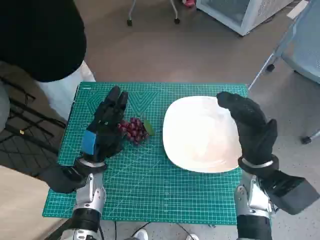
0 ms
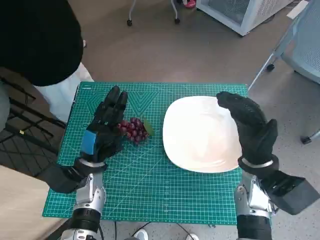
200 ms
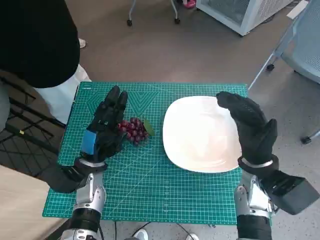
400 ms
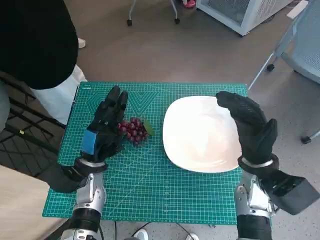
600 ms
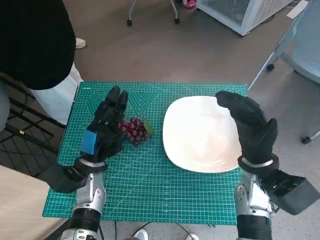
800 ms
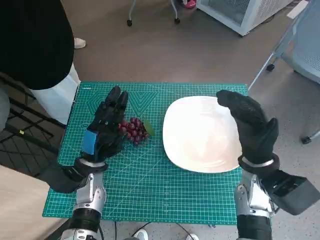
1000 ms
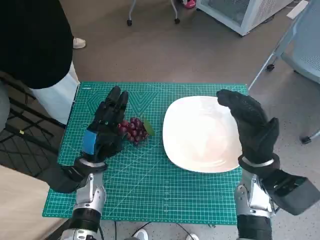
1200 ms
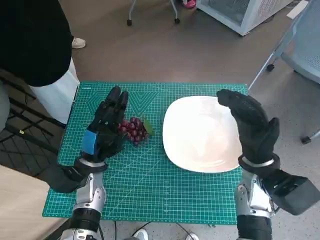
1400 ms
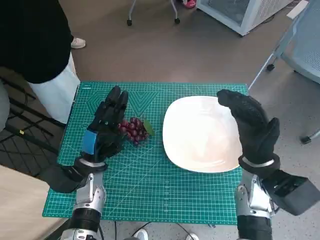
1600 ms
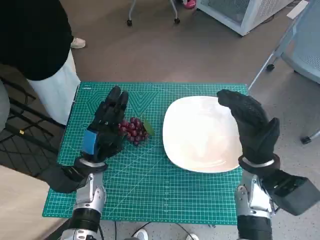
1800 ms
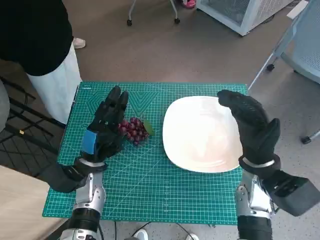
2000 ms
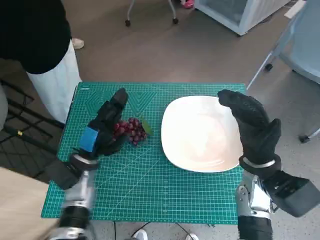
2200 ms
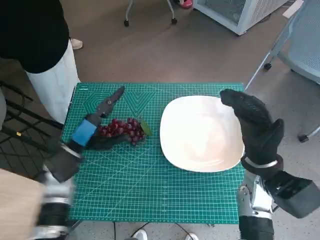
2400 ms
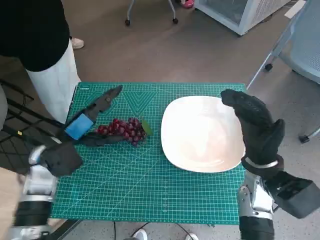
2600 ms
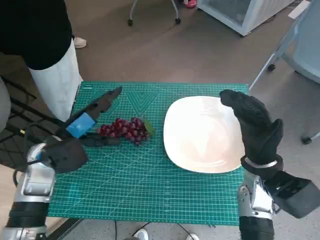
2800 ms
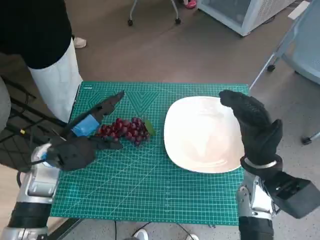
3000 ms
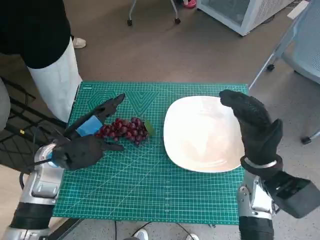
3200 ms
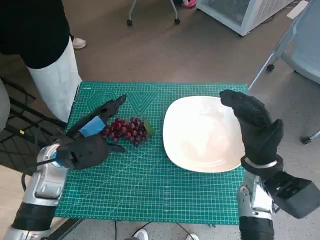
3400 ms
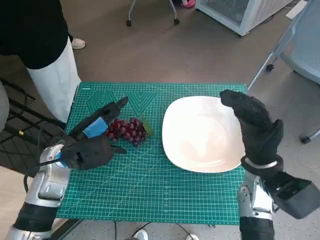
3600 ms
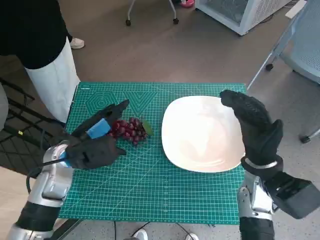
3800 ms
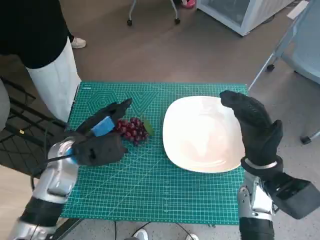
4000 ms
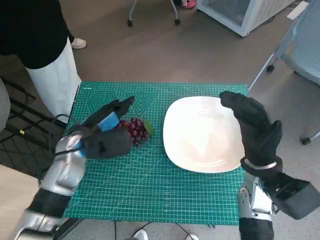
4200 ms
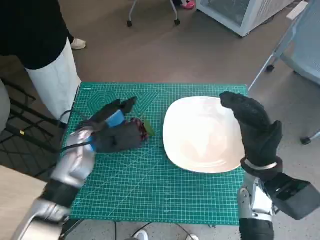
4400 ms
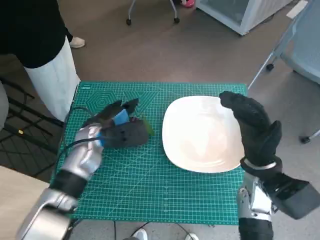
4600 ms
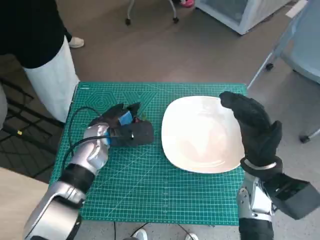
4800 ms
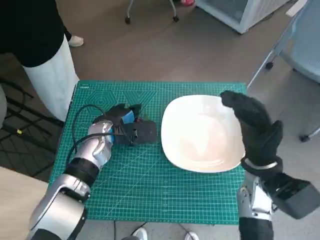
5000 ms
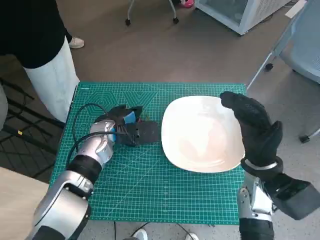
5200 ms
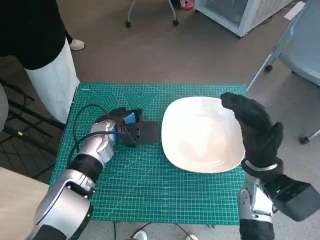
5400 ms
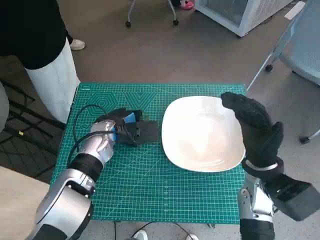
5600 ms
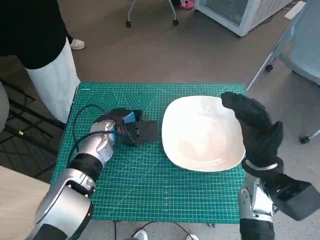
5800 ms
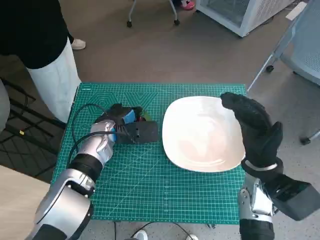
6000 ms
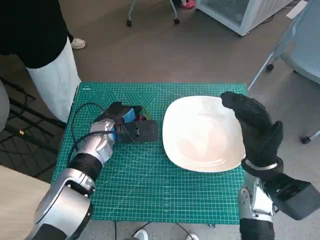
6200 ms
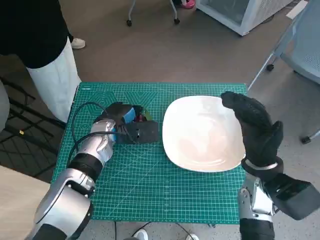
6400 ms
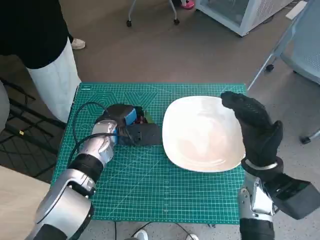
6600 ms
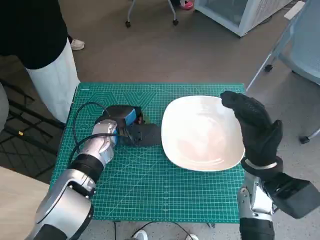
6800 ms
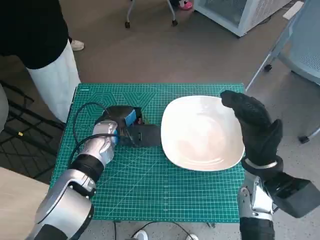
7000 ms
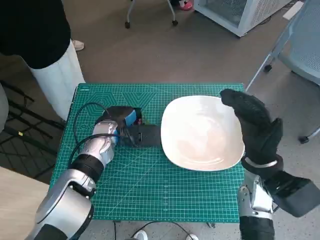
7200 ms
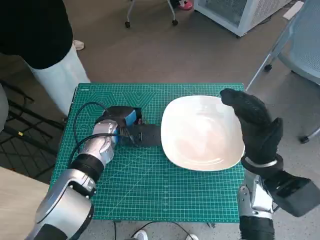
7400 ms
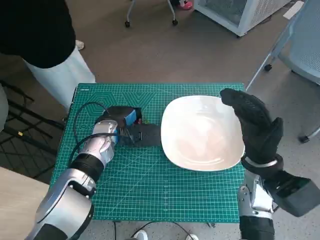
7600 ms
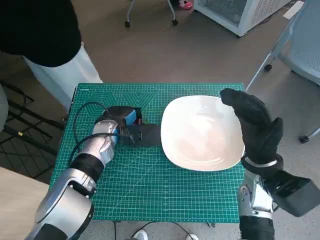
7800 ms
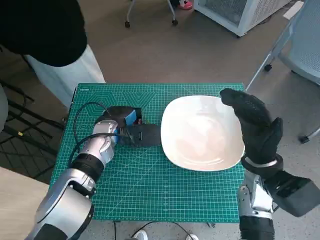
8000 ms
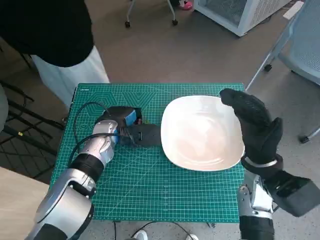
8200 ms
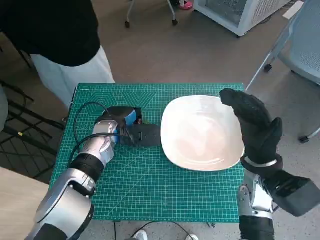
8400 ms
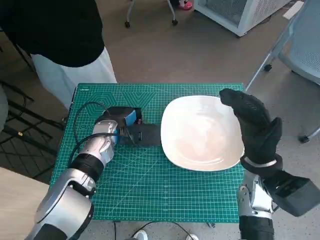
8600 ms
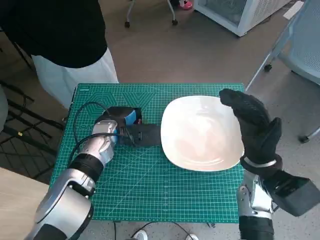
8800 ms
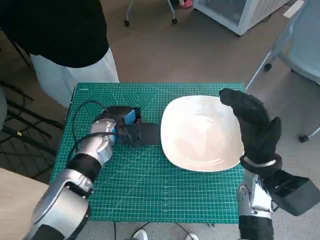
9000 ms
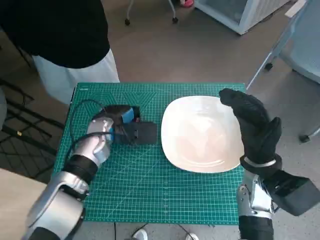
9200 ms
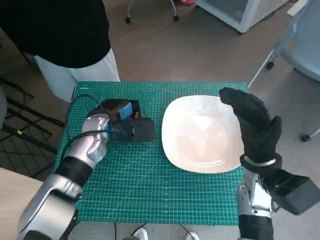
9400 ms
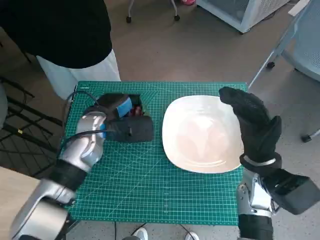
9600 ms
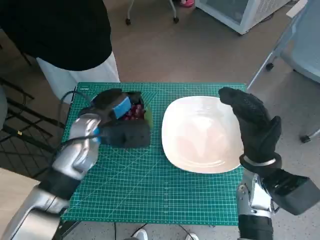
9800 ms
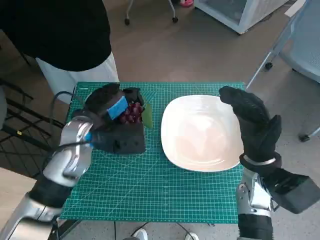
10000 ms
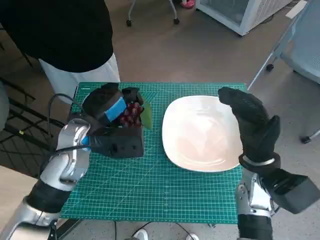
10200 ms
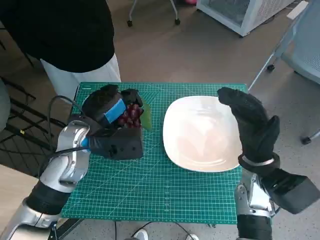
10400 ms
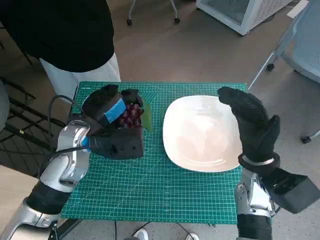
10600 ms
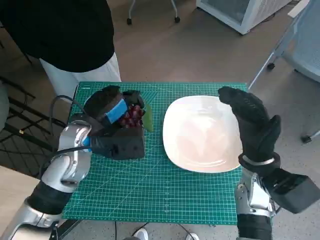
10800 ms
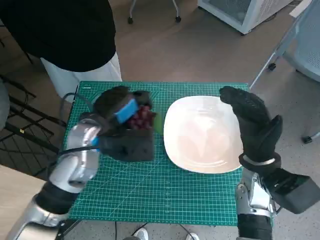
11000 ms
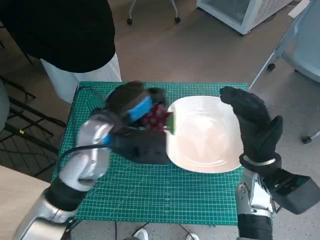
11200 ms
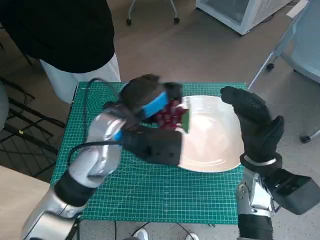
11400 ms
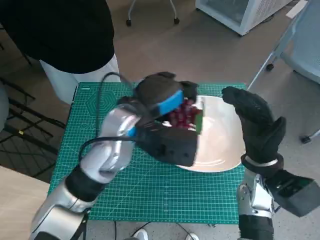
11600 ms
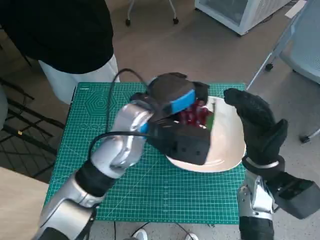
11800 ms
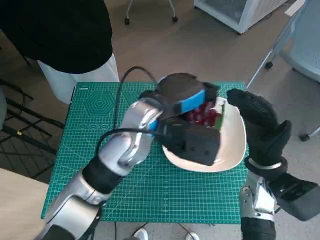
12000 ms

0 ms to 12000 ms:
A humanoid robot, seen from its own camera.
Task of the whole recording: Pick up the grapes and put them on the plate.
Step, 0 ms to 6600 ms: Grasp the grapes with left hand.
1600 ms to 3000 ms: The left hand goes about 10 cm upward.
3000 ms to 4400 ms: The left hand moves to the right, roughly 5 cm.
4400 ms to 6000 ms: The left hand moves roughly 5 cm.
6000 ms to 7600 ms: The hands move only a little.
7600 ms to 9000 ms: Neither hand changes place.
9000 ms to 10400 ms: The left hand is displaced upward and backward by about 10 cm.
10400 ms to 12000 ms: The left hand travels to the right and upward by some 15 cm.

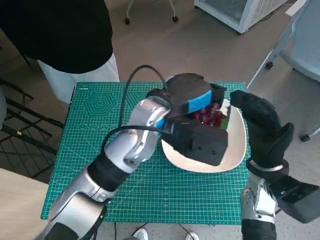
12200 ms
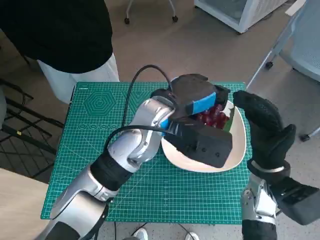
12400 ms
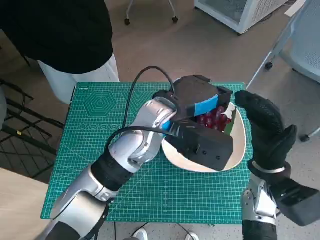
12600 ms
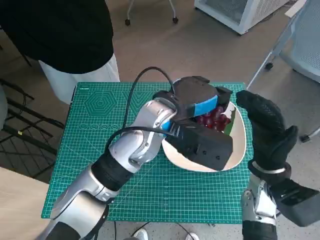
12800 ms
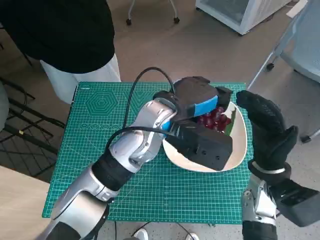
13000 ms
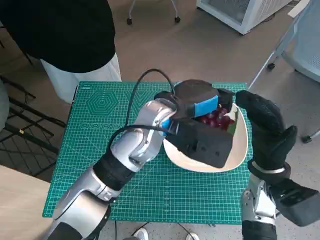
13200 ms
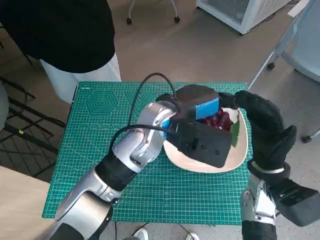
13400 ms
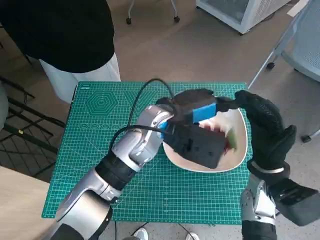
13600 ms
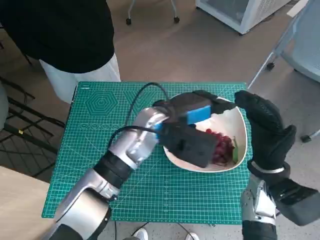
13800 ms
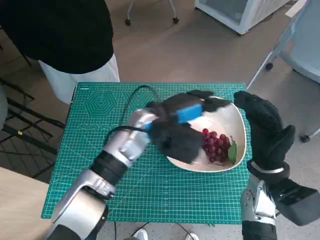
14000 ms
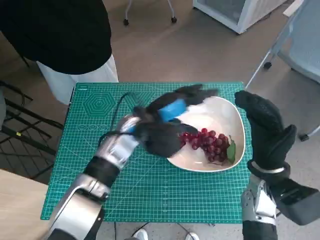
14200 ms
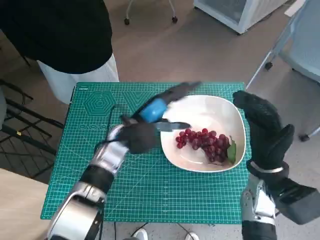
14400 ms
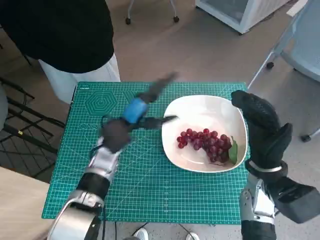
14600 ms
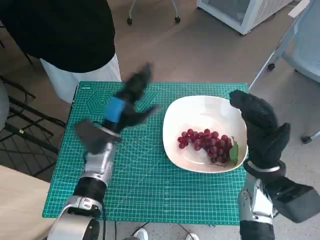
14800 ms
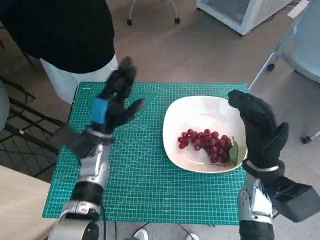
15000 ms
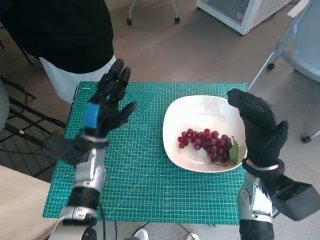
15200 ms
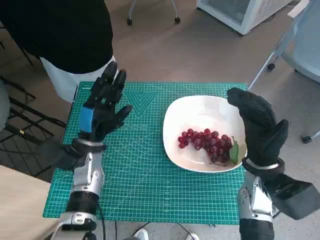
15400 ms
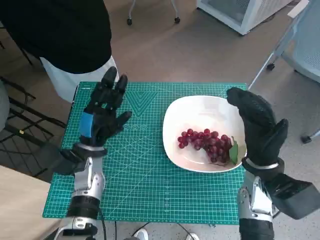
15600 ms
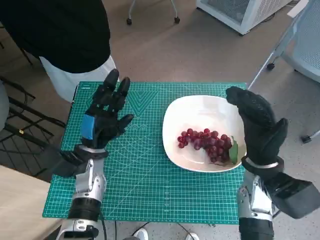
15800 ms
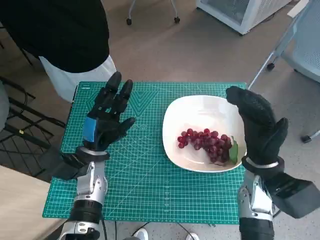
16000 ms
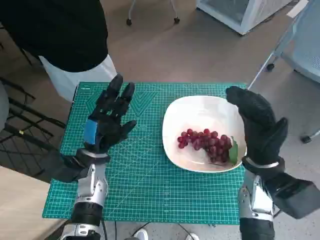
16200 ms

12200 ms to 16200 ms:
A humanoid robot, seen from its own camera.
Task of the whole recording: Pick up the grapes and put them on the plate.
12200 ms to 13600 ms: The hands stay close to where they were, moving slightly.
13600 ms to 14800 ms: The left hand is displaced to the left and downward by about 15 cm.
14800 ms to 16200 ms: The left hand ends up about 5 cm from where it was.

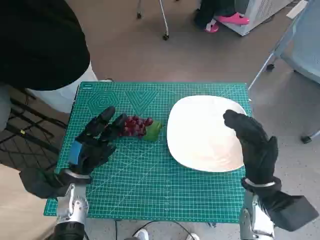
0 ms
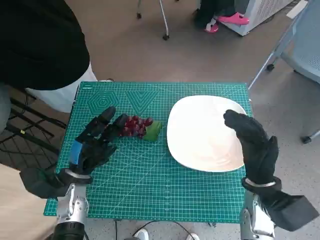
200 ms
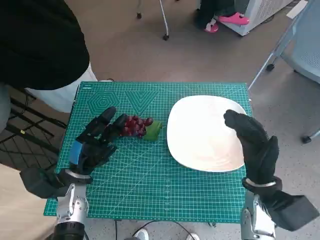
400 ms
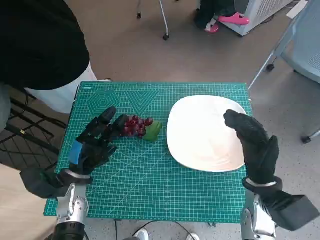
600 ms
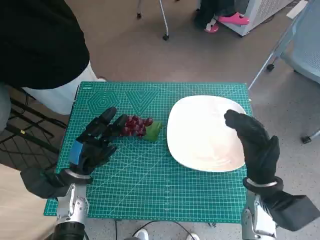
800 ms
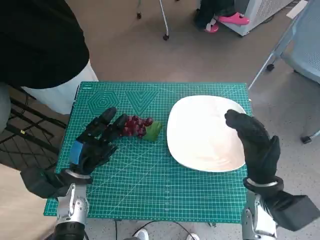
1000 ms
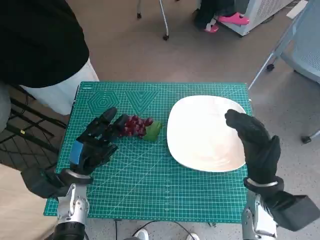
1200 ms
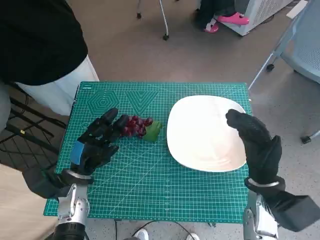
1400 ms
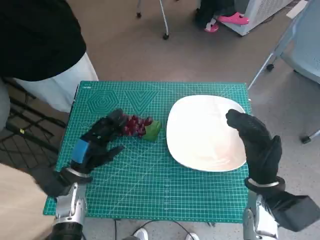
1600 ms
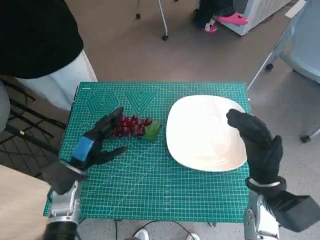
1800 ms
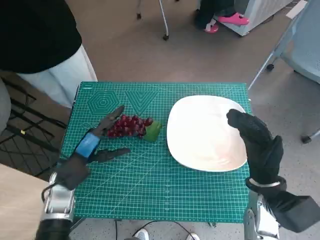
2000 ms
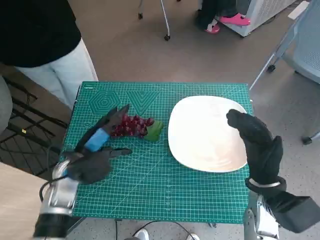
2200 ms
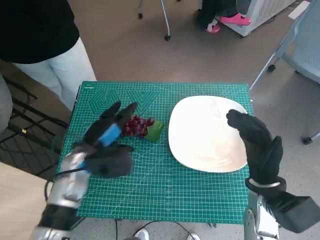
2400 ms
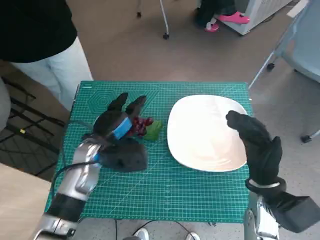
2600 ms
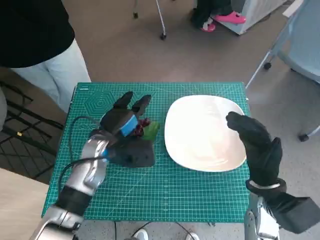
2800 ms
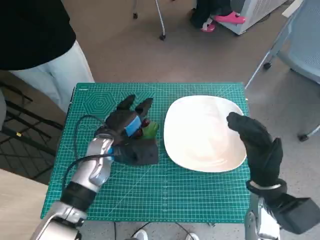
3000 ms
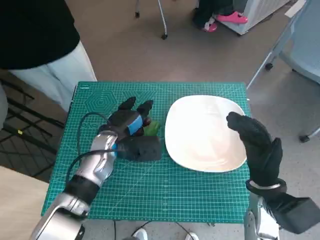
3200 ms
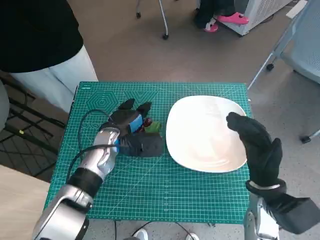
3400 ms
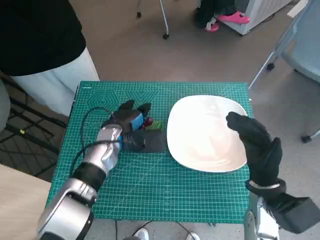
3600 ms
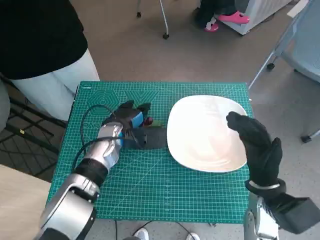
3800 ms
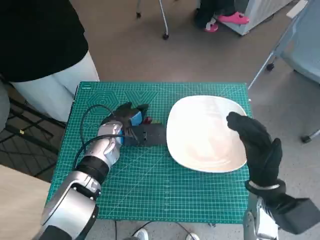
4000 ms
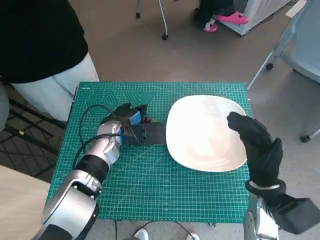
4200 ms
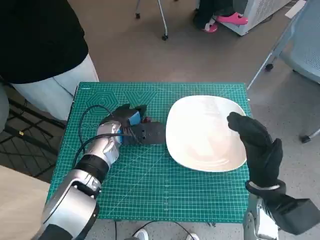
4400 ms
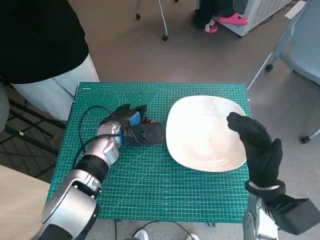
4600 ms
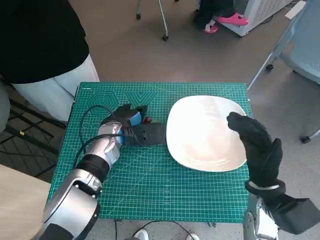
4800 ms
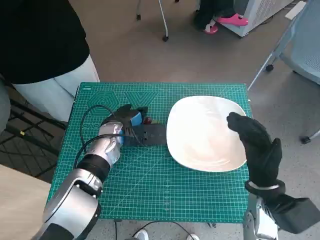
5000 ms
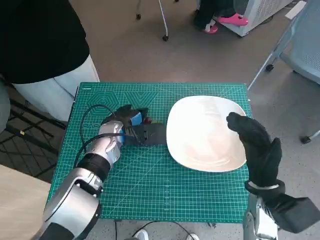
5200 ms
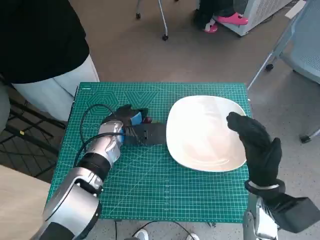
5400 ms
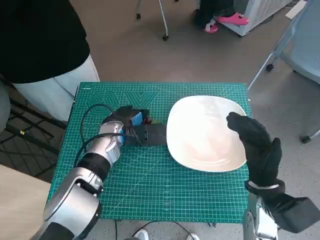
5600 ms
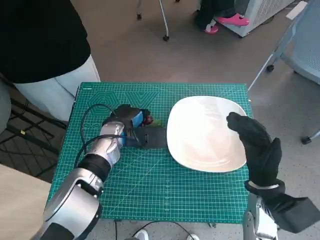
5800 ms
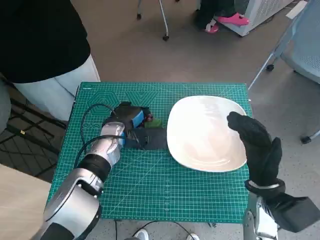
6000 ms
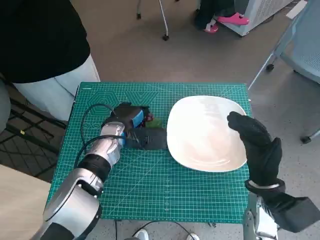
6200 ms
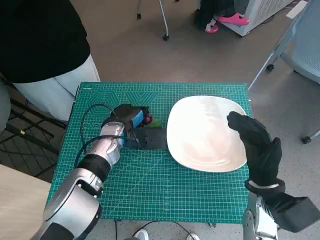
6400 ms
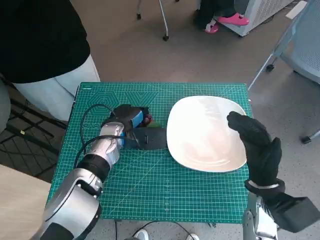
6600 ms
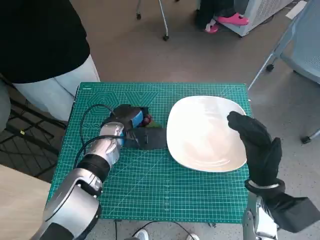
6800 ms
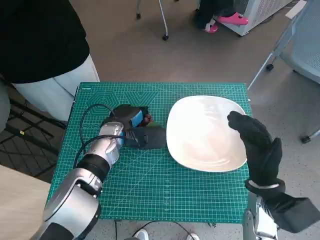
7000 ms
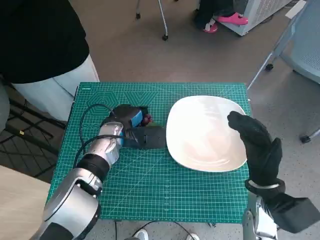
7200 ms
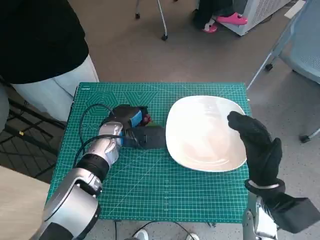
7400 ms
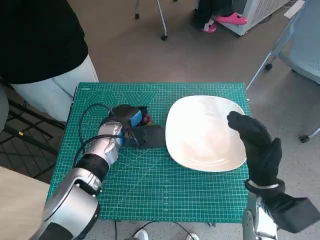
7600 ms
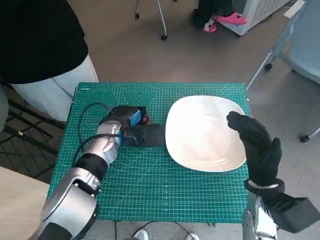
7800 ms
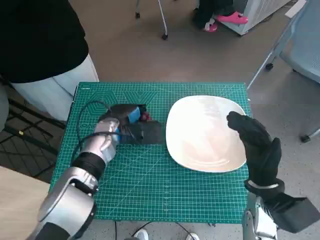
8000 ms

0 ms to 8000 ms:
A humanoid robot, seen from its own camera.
Task of the whole recording: Pick up the grapes and put them on the plate.
Step, 0 ms to 6600 ms: Grasp the grapes with left hand.
1600 ms to 3200 ms: The left hand heads to the right, forward and upward, covering some 15 cm.
3200 ms to 6400 ms: The hands stay close to where they were, moving slightly.
6400 ms to 8000 ms: Both hands stay about where they are.
